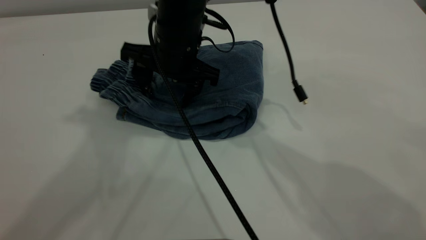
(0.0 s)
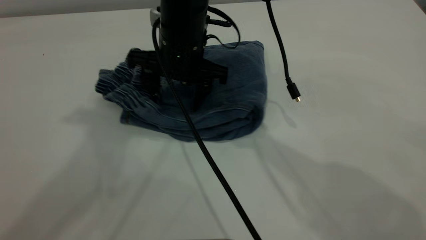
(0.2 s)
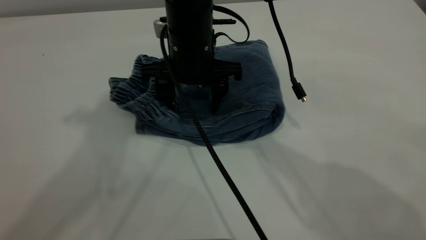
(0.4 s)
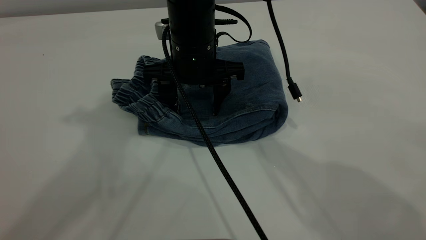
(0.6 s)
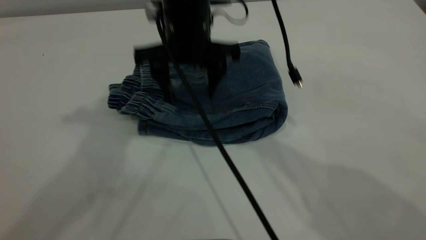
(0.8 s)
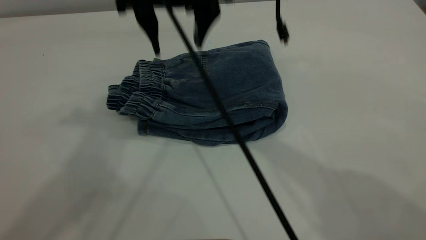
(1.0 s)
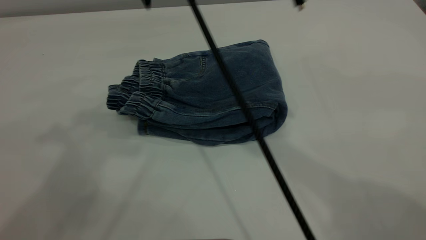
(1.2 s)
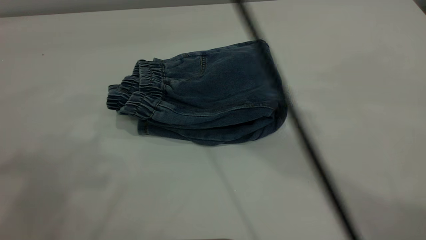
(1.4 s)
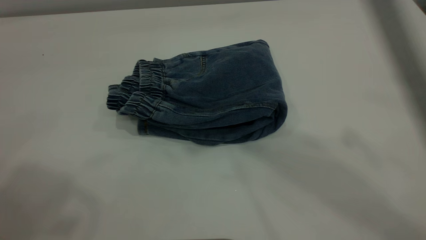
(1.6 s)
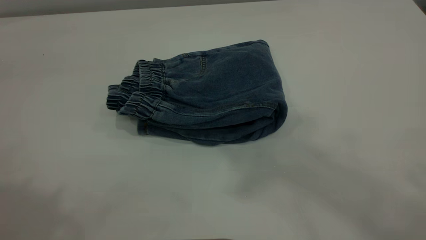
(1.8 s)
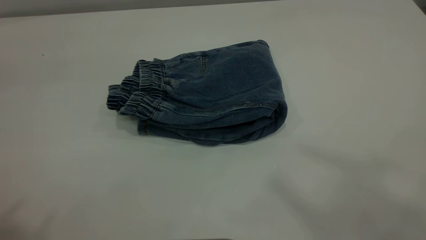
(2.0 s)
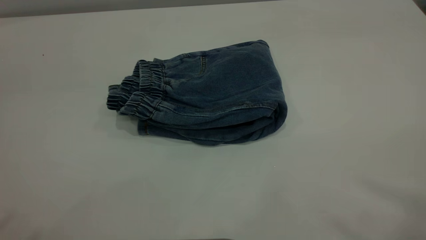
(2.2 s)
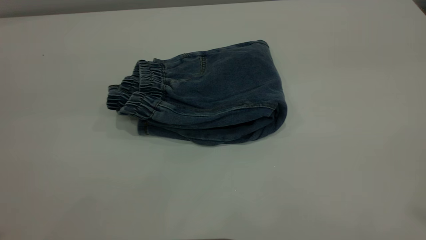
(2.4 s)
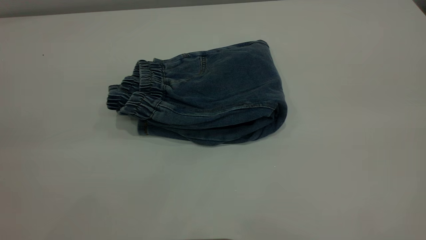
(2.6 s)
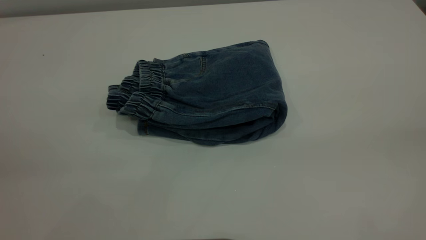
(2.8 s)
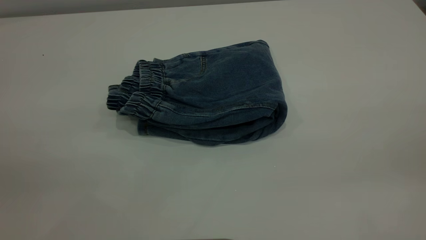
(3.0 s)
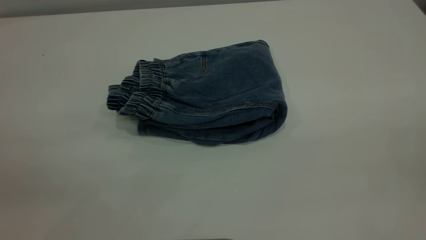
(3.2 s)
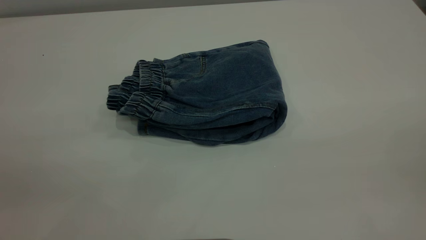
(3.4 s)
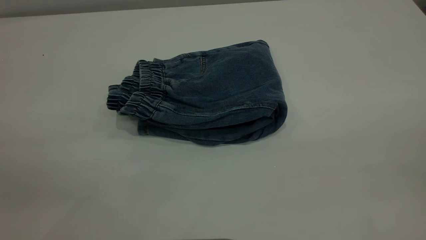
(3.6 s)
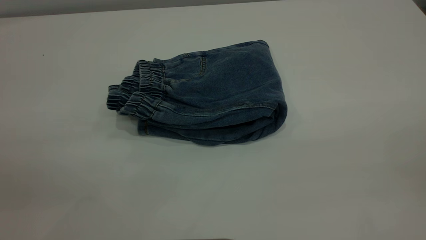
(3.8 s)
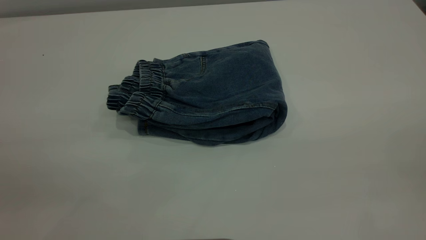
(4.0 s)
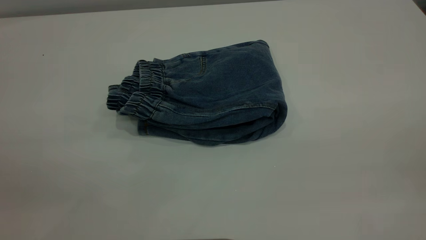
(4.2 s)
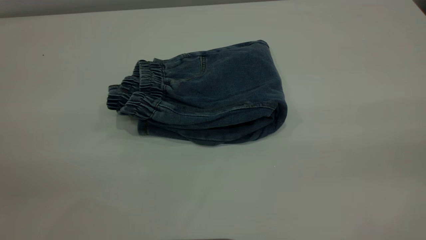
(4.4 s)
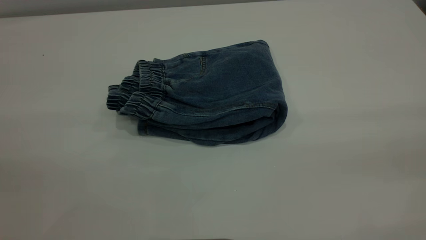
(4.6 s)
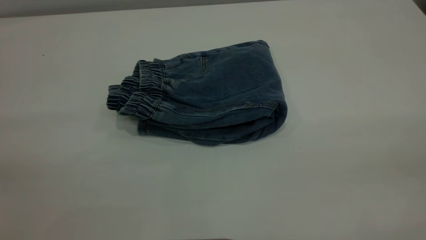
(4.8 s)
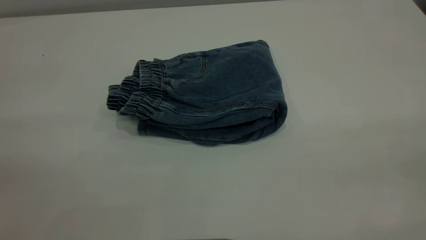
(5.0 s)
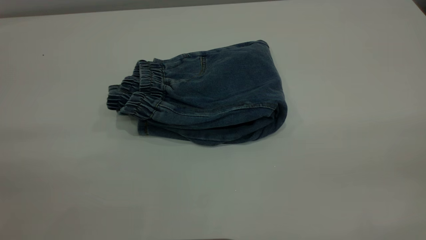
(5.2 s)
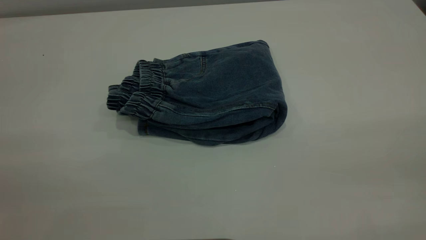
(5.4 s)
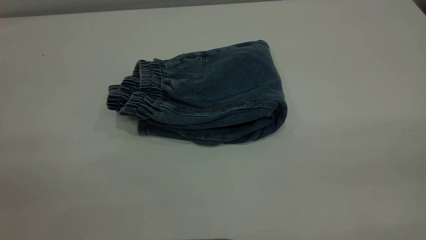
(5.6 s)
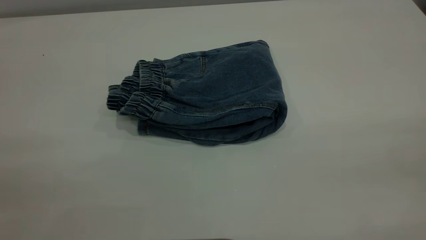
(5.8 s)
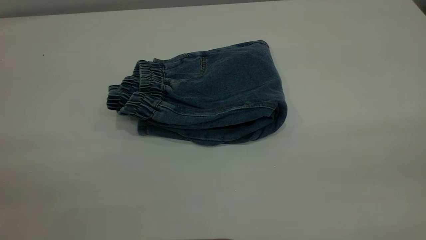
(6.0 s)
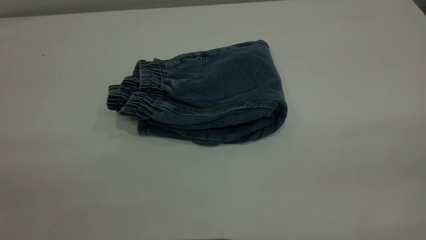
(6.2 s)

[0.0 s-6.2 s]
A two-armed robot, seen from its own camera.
0.0 to 1.6 s: The left gripper goes approximately 15 cm backward, to the left and upward, while the right gripper goes approximately 40 cm upward.
1.6 to 3.2 s: The right gripper is displaced backward, to the right and downward by about 40 cm.
